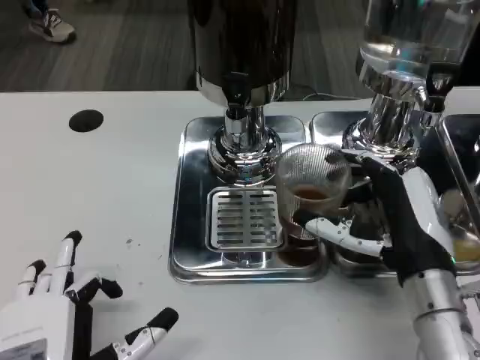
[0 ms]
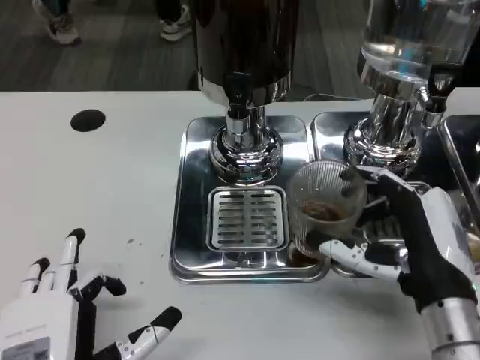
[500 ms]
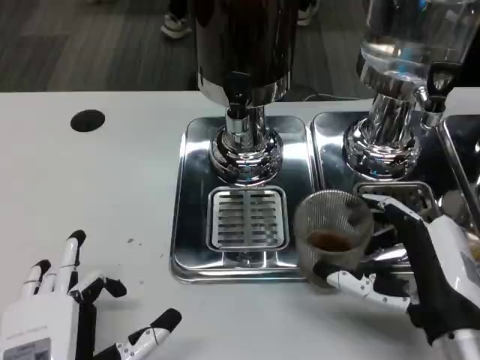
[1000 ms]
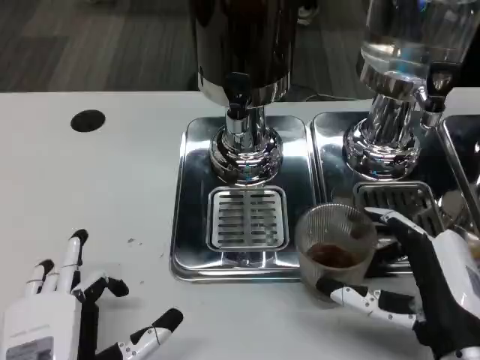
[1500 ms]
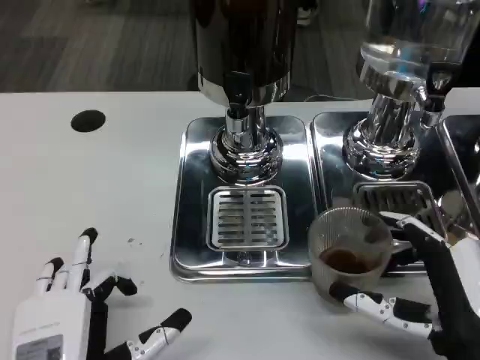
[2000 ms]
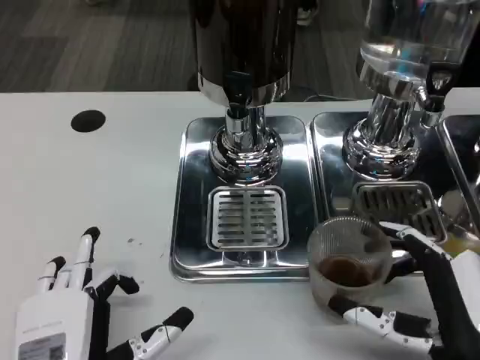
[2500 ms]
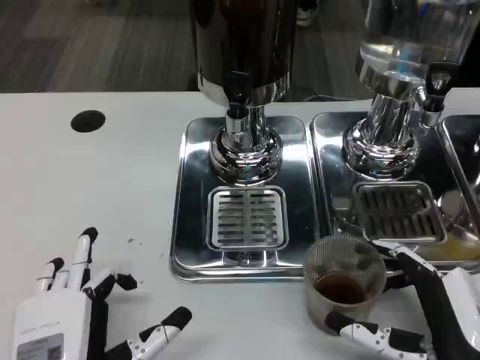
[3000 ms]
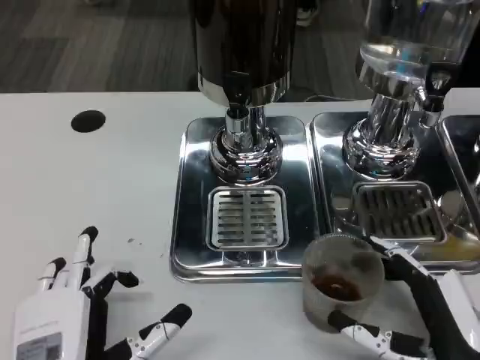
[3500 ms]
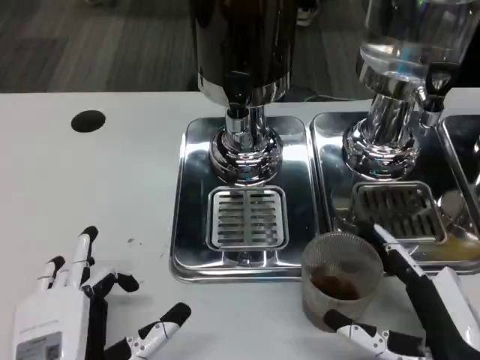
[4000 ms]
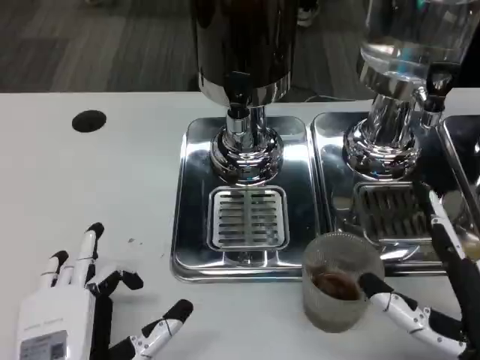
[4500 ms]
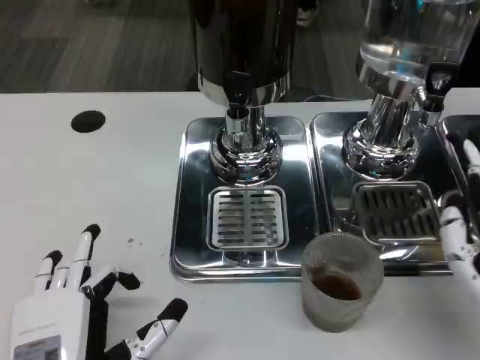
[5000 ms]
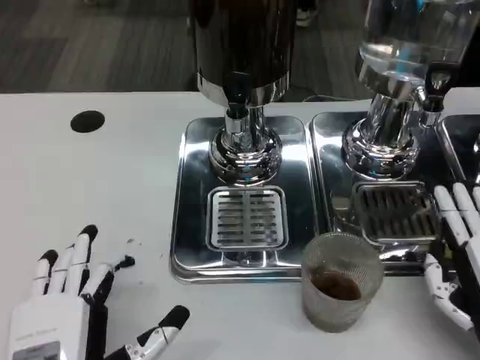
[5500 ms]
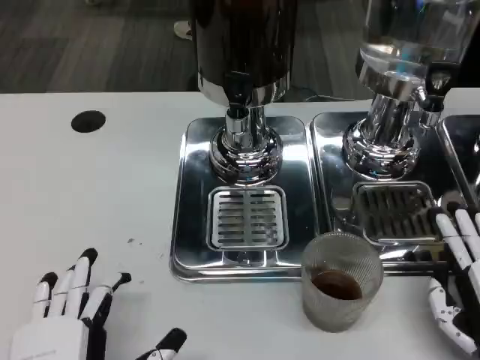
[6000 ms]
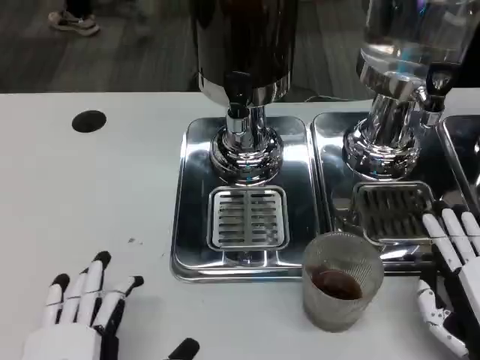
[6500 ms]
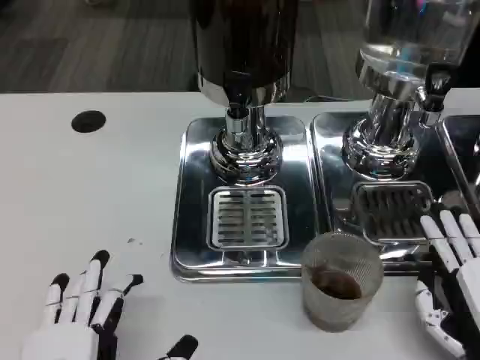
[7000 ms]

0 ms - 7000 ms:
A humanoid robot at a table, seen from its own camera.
Task of the whole recording: Grasp the cup under the faucet to collect the drink, then remove the cup.
0 ms - 2000 ms: The right hand heads backward, covering approximately 10 cm.
2000 ms - 3500 ms: The hands move only a little.
3500 ms - 5000 ms: The right hand shifts by about 5 cm.
5000 ms - 7000 ms: The right hand heads downward, covering about 5 cm.
